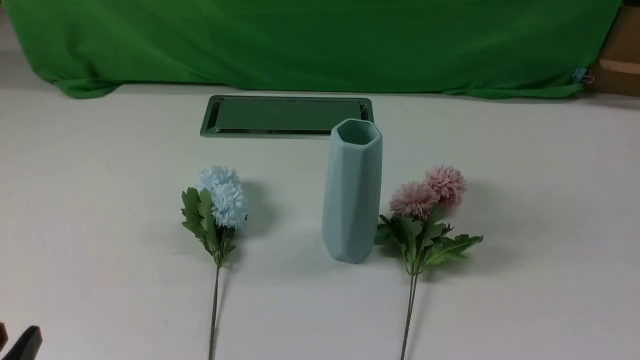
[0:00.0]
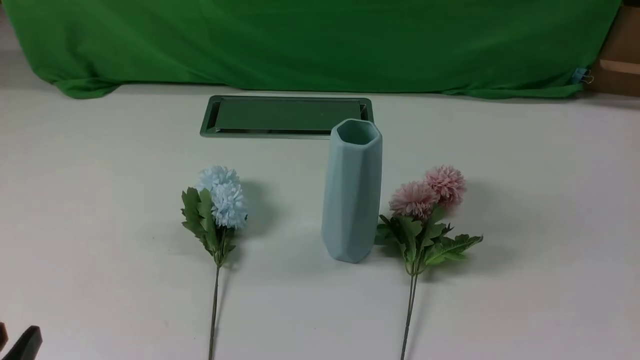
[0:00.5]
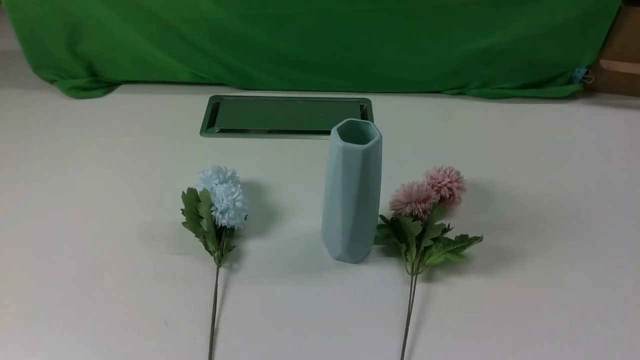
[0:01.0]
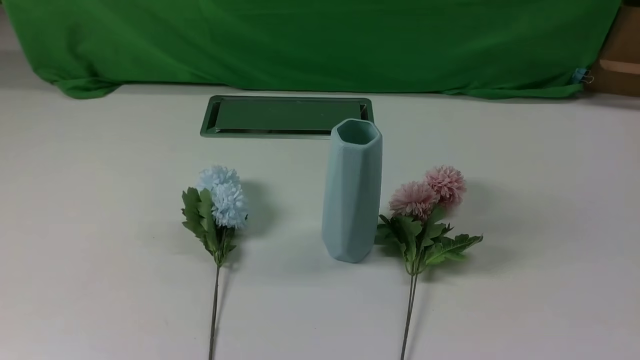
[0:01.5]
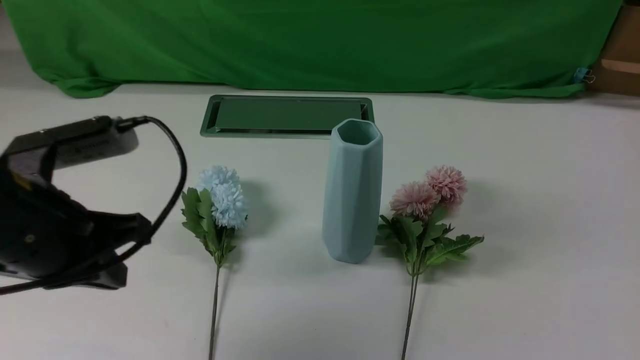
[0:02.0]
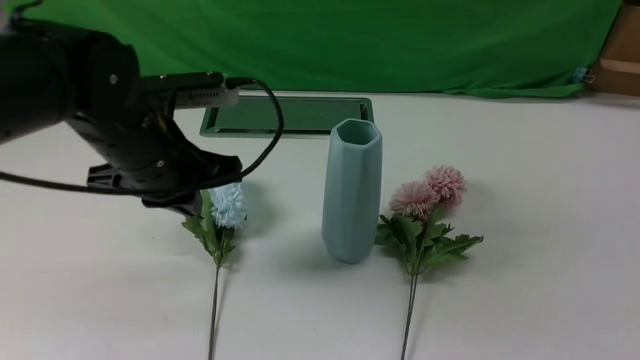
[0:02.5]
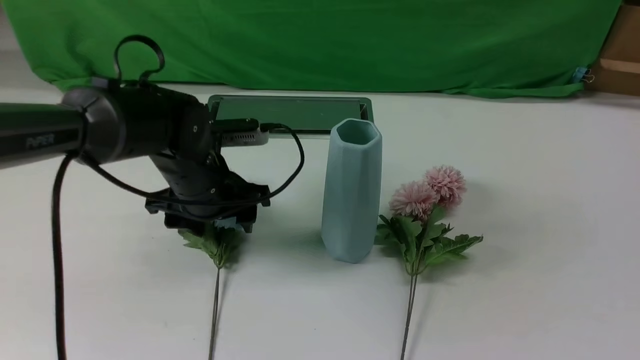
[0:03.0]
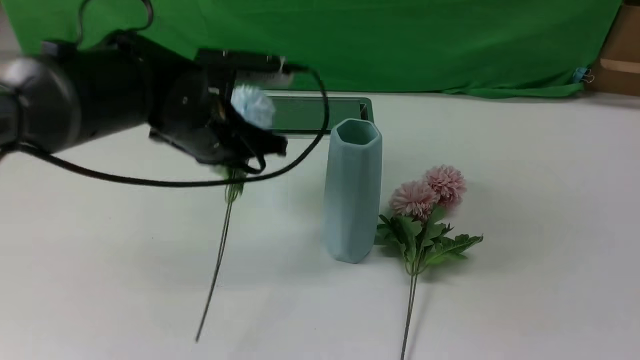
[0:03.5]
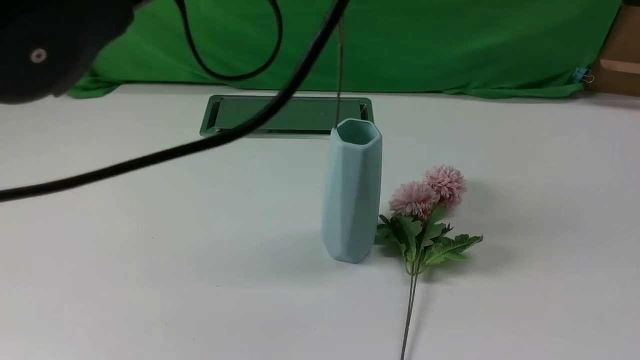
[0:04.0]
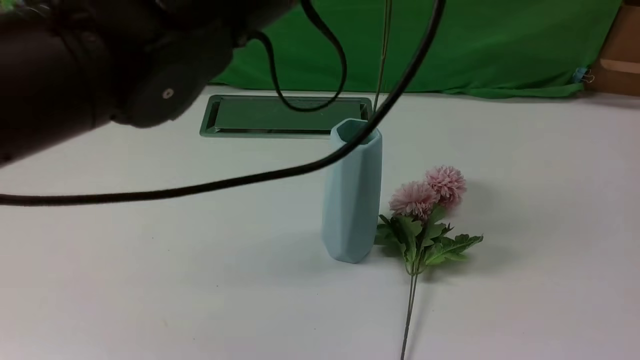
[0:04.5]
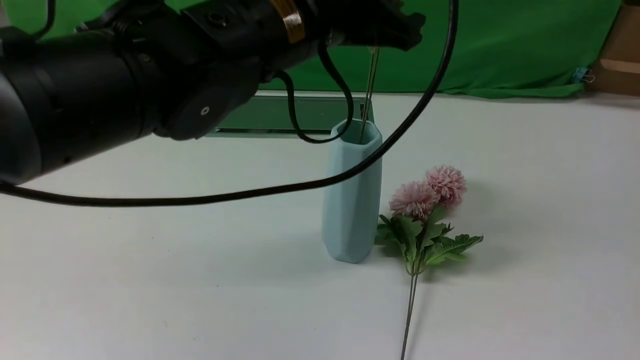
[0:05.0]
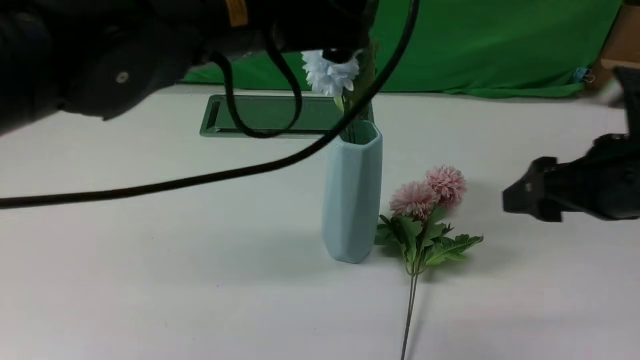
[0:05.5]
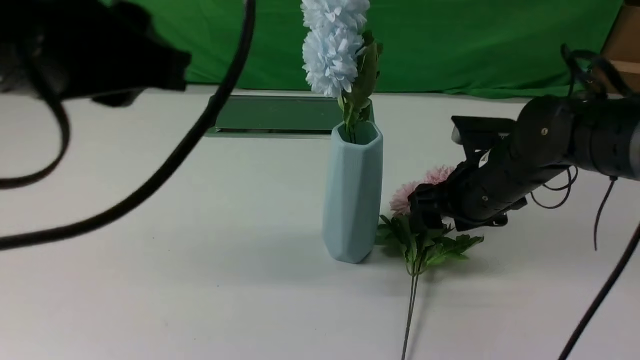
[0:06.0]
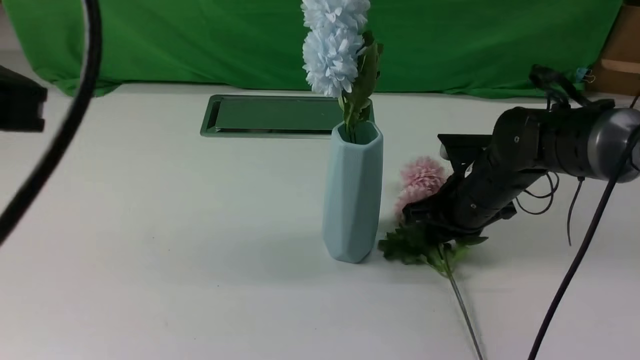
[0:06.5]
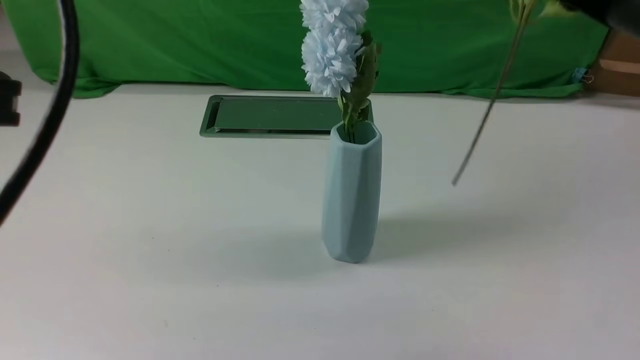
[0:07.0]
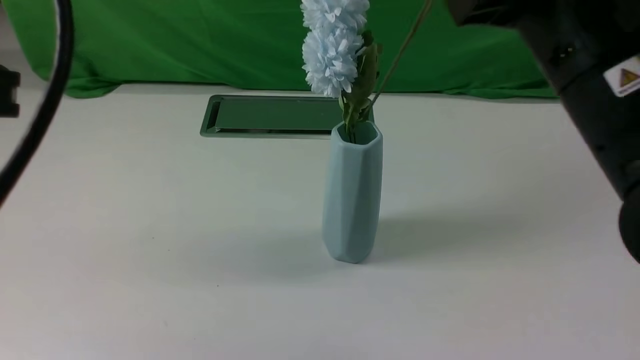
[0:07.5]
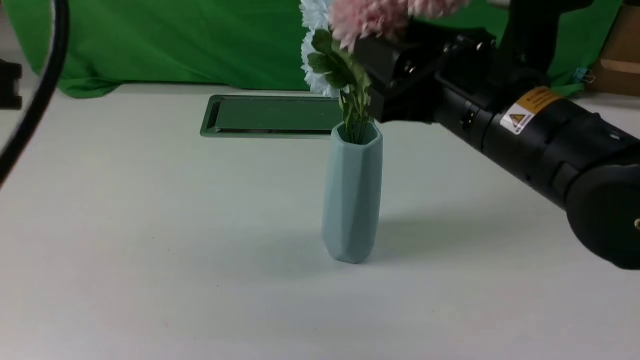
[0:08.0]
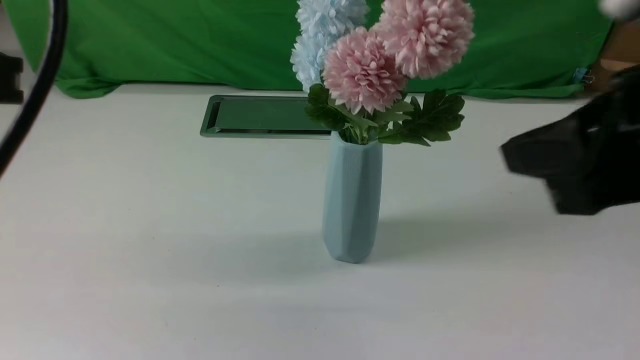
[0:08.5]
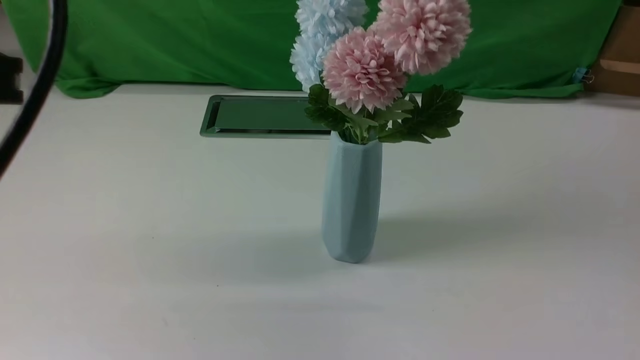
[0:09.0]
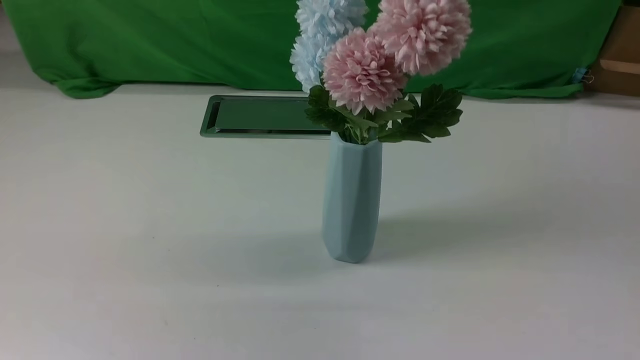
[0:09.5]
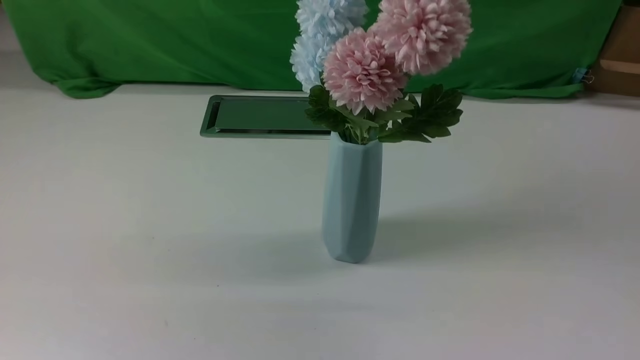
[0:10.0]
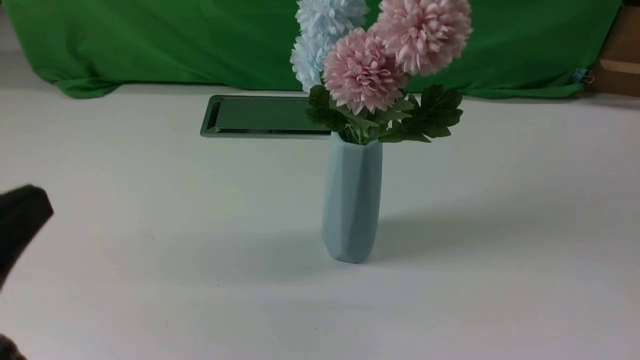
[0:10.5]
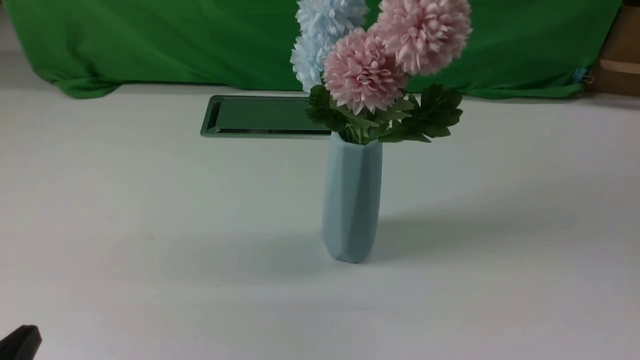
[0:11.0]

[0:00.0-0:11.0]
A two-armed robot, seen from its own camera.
Task of the whole recording: insert the flowers into the vase on the white table.
Step, 0:00.0 to 0:03.0: use the left arm to grab a bunch of fresh flowers.
Step, 0:03.5 to 0:05.5: use the left arm to insert the flowers into the vase.
Step, 0:06.5 to 0:08.0: use the right arm to insert the flowers into the vase.
0:00.0 to 0:02.0: The left gripper travels forward and upward by approximately 20 cm, and closes.
0:02.0 to 0:03.5: The right gripper travels forward and upward by roughly 10 cm, and opens its fingers, while the left gripper moves forward and to the right, about 15 cm, and opens, then closes once more.
0:03.5 to 0:05.5: The left gripper is displaced upward and backward by about 15 cm, and opens up. The right gripper is displaced forward and to the left by about 15 cm.
0:05.5 to 0:07.5: The left gripper is displaced backward and to the left by some 20 cm, and closes, while the right gripper moves to the left and upward, approximately 15 cm, and closes up.
0:07.5 to 0:09.0: The right gripper is displaced backward and to the right by some 25 cm, and opens, then closes again.
0:09.0 to 0:11.0: The left gripper is displaced downward by some 25 cm.

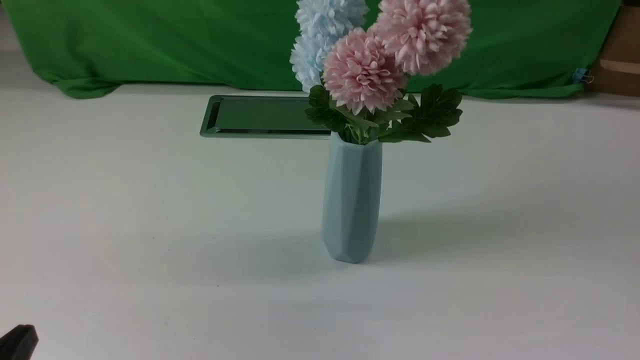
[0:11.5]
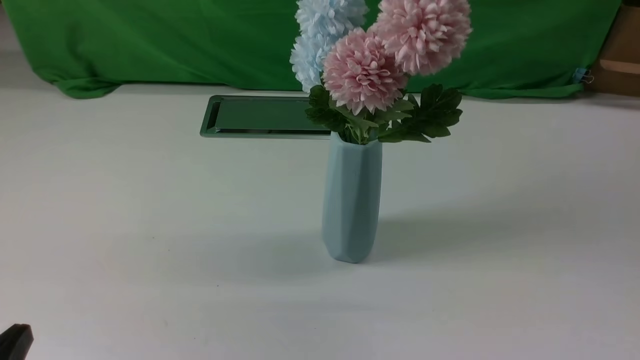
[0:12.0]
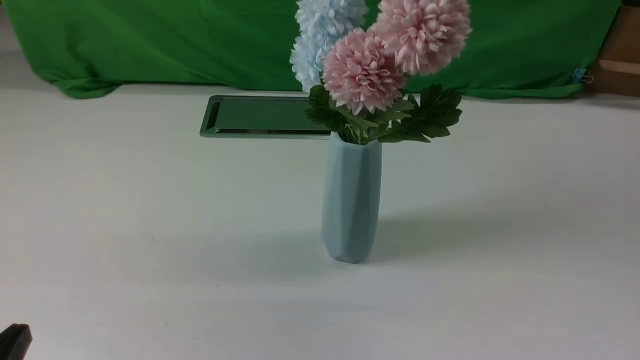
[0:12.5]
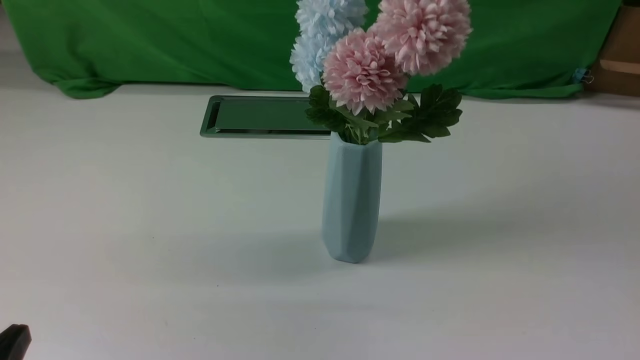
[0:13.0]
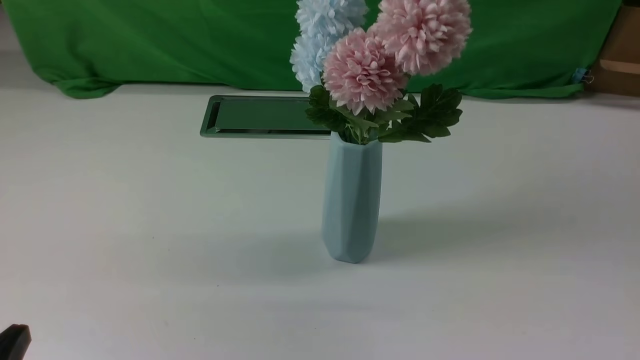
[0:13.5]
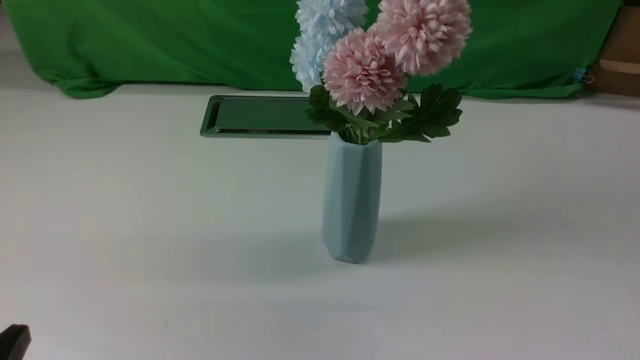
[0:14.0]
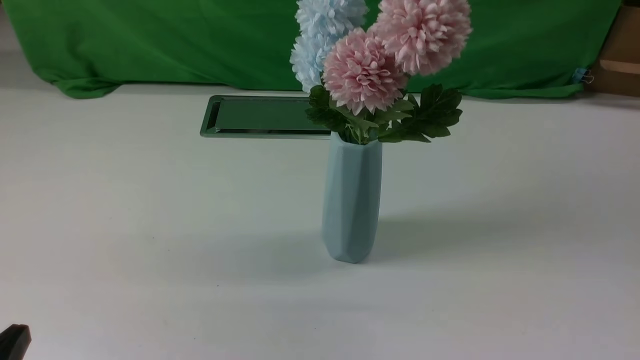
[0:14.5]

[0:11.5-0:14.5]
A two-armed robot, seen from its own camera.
Task of the whole recording: insert the flowers into the vase on the white table.
0:13.0 to 0:14.5: The two grippers keep their place.
